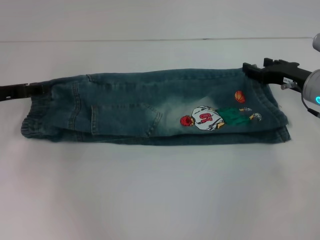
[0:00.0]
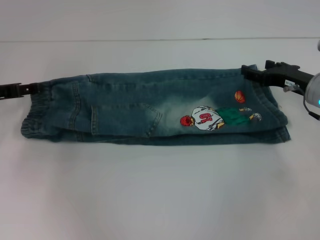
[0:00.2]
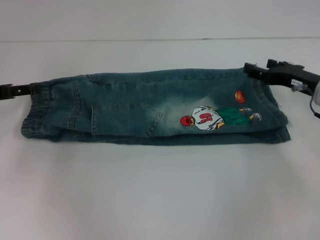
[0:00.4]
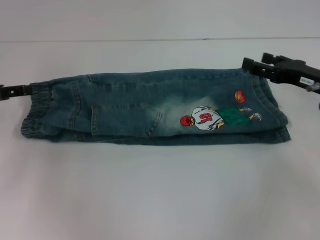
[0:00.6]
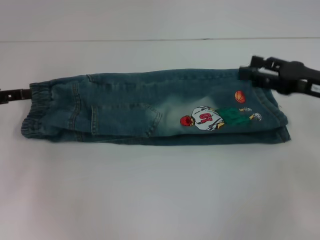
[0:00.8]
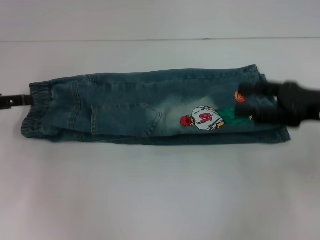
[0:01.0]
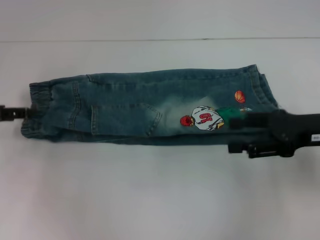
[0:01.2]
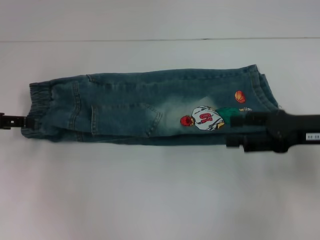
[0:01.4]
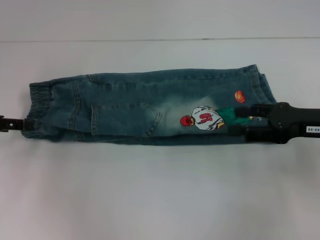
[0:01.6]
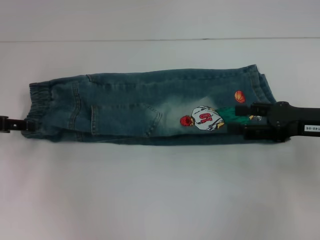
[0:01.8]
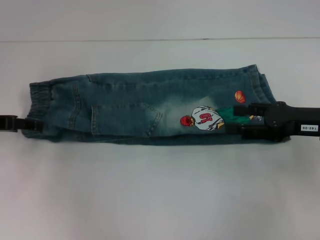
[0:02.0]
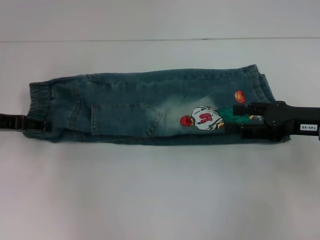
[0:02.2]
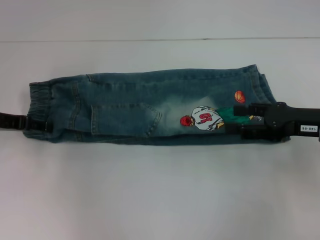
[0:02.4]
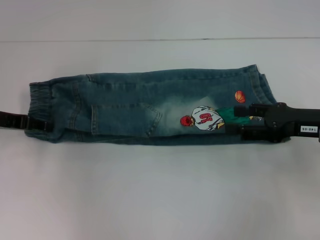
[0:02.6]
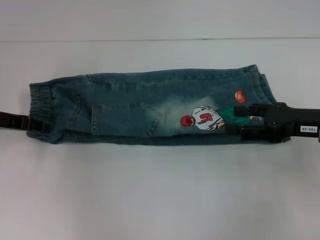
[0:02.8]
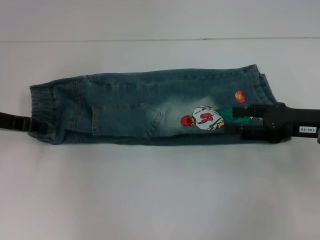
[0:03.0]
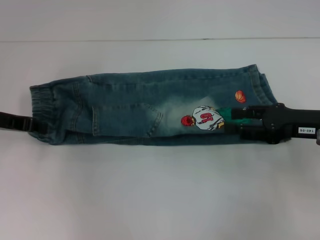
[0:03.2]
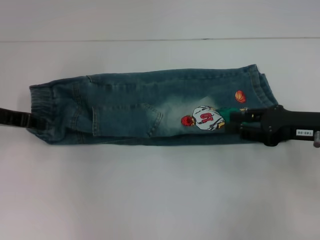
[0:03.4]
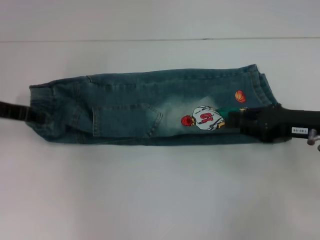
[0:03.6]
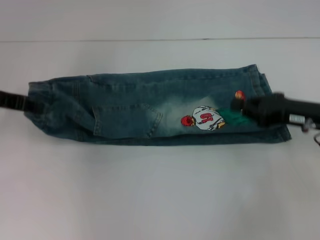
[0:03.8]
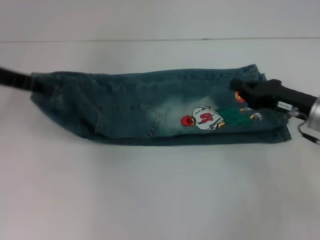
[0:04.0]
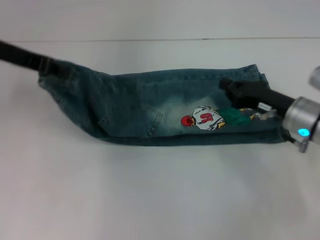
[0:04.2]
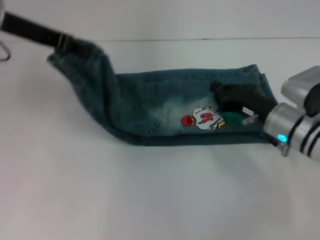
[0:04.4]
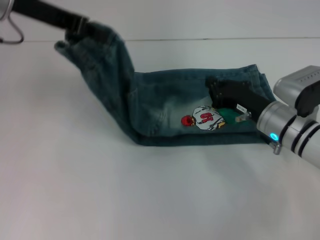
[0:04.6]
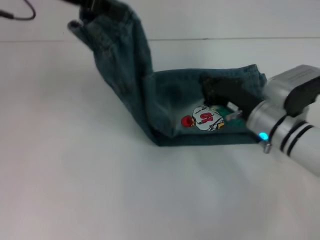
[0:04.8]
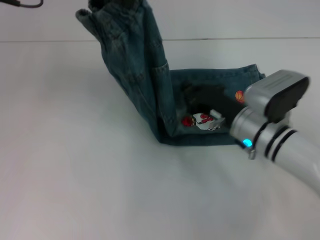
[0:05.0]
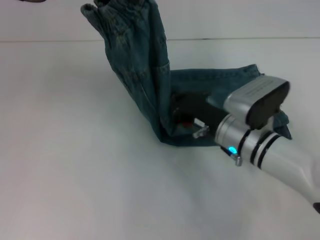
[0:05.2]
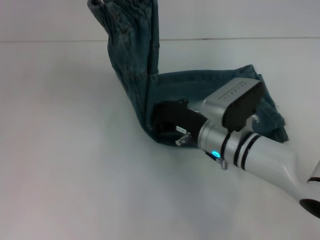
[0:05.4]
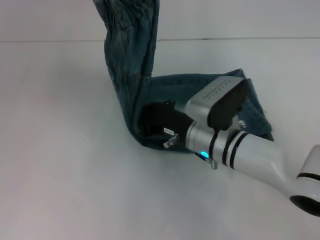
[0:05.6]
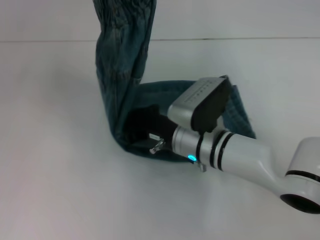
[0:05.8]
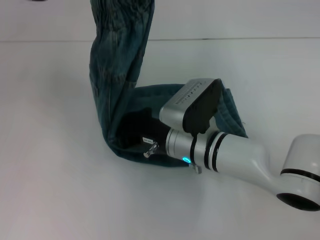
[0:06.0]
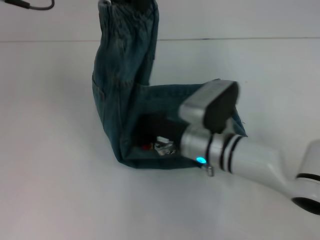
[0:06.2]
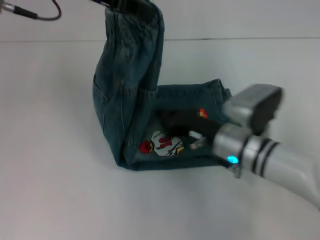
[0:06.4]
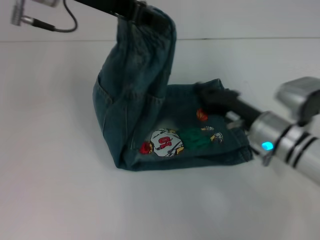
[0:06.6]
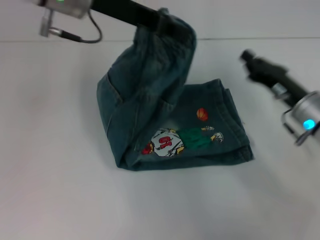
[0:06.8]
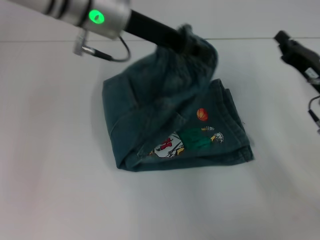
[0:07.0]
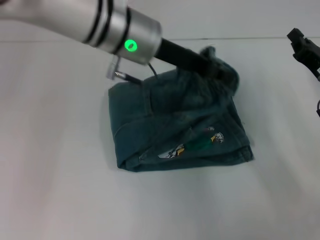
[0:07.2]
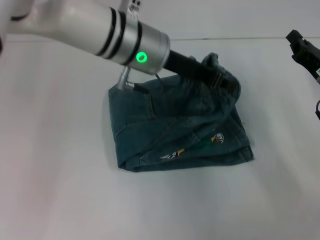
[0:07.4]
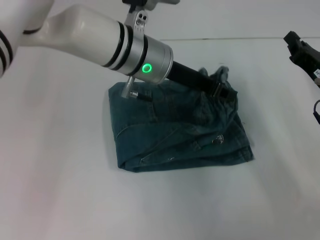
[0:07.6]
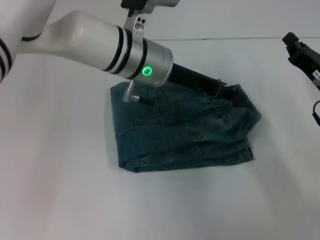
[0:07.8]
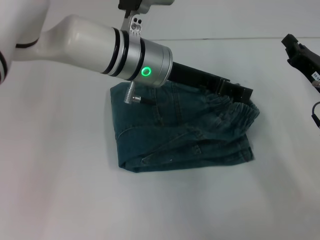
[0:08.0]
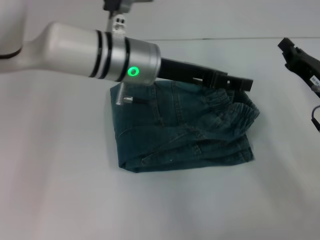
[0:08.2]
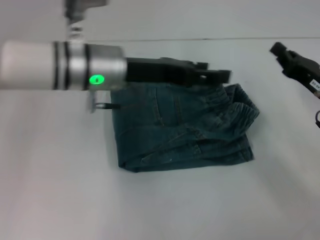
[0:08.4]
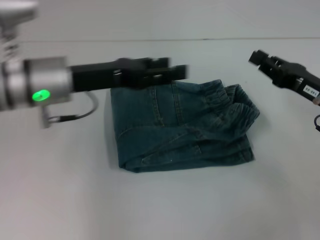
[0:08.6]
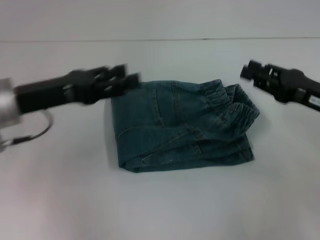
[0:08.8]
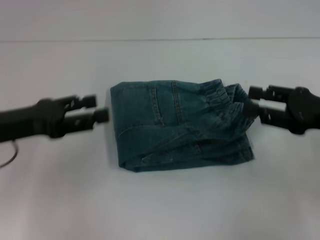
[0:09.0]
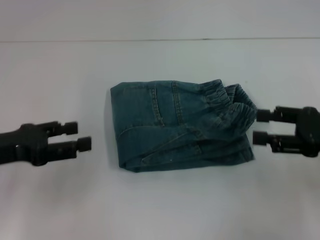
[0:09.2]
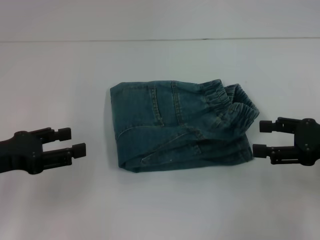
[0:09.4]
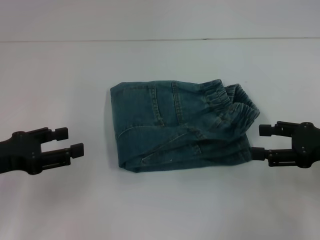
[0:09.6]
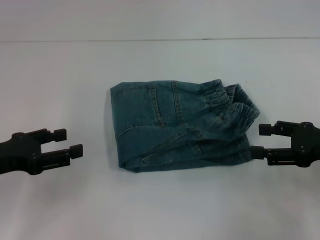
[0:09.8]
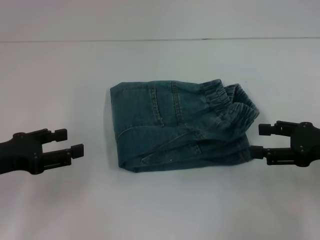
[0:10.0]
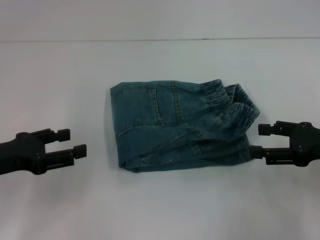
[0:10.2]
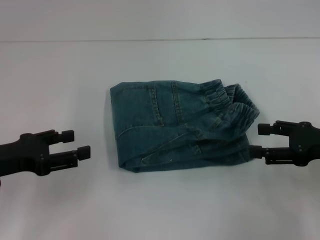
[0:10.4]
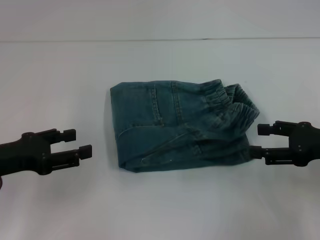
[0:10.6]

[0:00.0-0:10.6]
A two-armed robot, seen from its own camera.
Step, 0:00.2 to 0:03.2: Hold the waistband with your left hand.
Step, 0:03.4 to 0:06.4: Press the middle of the pants with your right hand.
Step, 0:06.6 to 0:08.0: Fold to the right with your left hand.
0:00.0 to 0:01.6: The right gripper is displaced backward by roughly 10 cm, and opens its fingers; the left gripper ends up some 5 cm from where it was.
0:01.6 to 0:03.0: The left gripper ends up some 5 cm from where it was, and closes its fingers.
0:03.0 to 0:04.6: The left gripper is displaced upward and to the right by about 20 cm, and closes. The right gripper is displaced to the left and downward by approximately 10 cm, and closes up.
0:04.6 to 0:06.0: The right gripper is displaced to the left by some 15 cm. The left gripper moves some 5 cm.
0:06.0 to 0:07.6: The right gripper goes approximately 25 cm to the right. The left gripper heads downward and to the right, covering approximately 20 cm.
0:07.6 to 0:09.0: The right gripper travels upward by about 5 cm, and opens up; the left gripper is displaced to the left and backward by some 25 cm, and opens up.
0:09.0 to 0:10.6: The right gripper opens its fingers.
